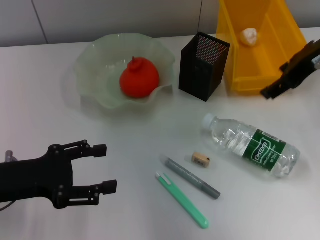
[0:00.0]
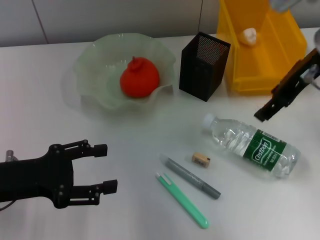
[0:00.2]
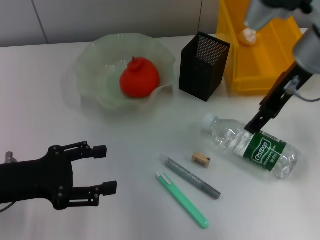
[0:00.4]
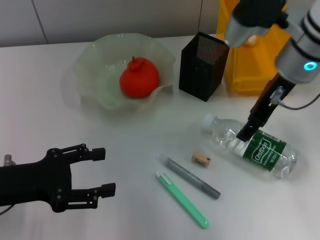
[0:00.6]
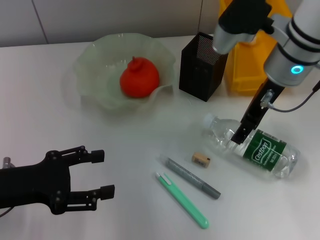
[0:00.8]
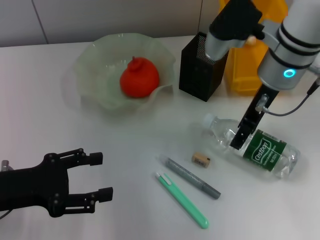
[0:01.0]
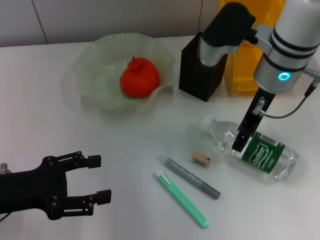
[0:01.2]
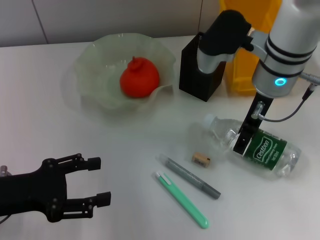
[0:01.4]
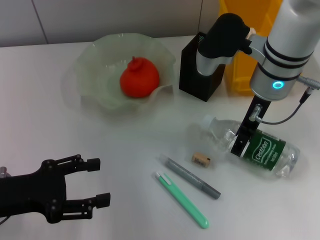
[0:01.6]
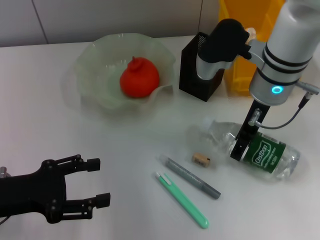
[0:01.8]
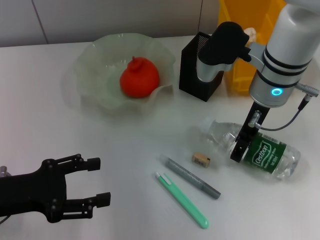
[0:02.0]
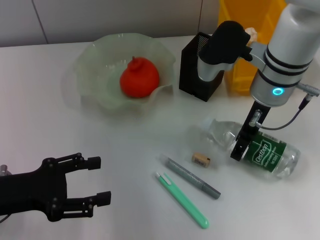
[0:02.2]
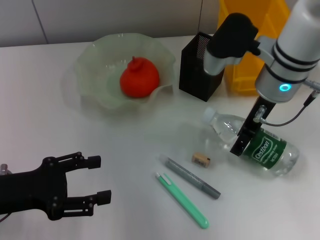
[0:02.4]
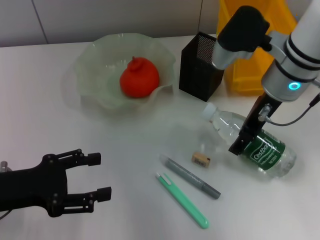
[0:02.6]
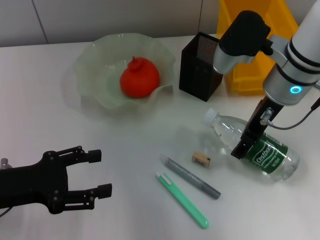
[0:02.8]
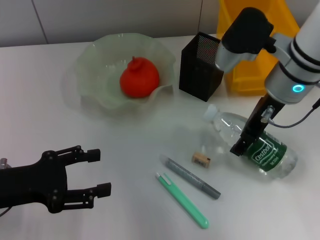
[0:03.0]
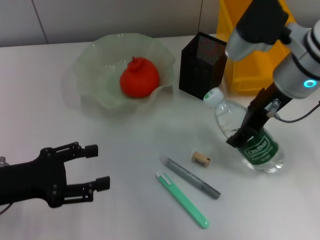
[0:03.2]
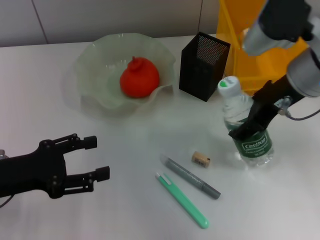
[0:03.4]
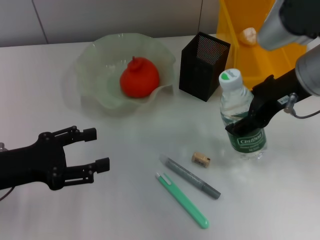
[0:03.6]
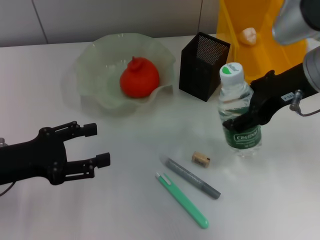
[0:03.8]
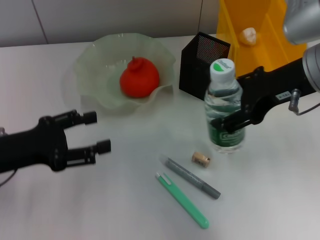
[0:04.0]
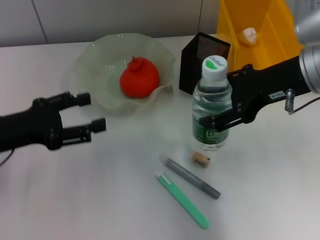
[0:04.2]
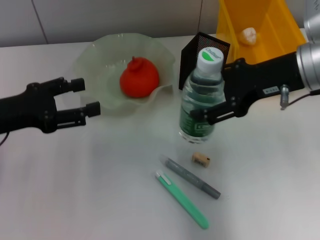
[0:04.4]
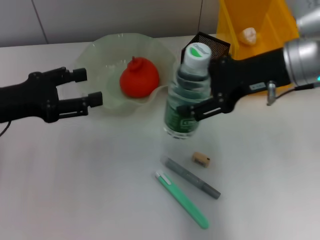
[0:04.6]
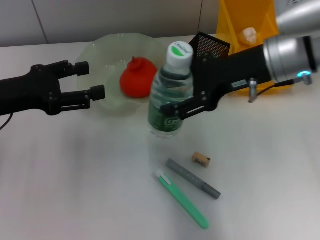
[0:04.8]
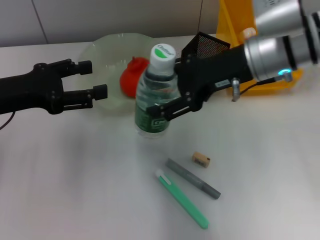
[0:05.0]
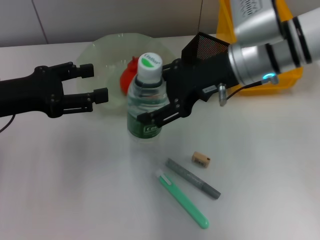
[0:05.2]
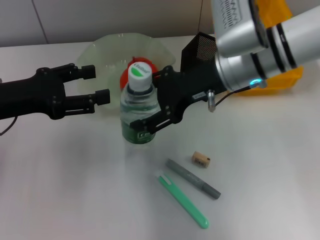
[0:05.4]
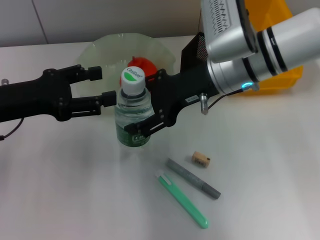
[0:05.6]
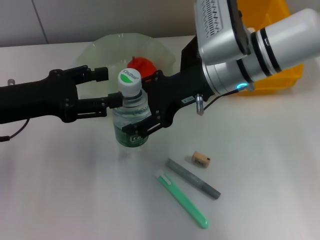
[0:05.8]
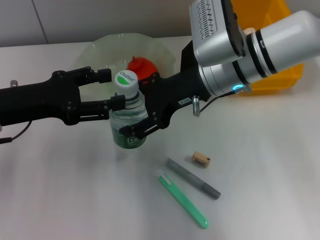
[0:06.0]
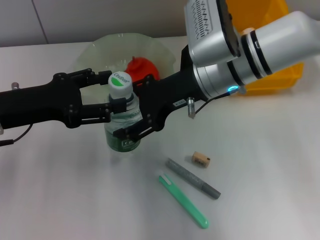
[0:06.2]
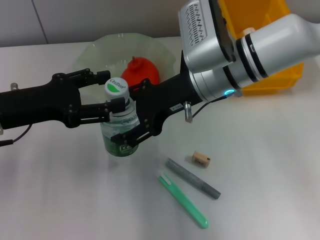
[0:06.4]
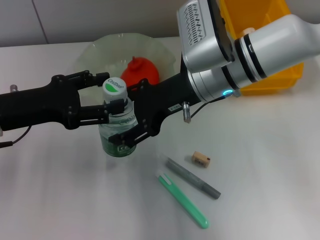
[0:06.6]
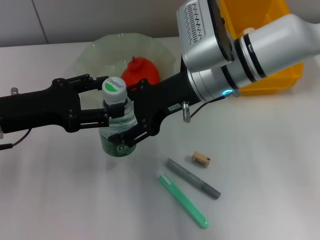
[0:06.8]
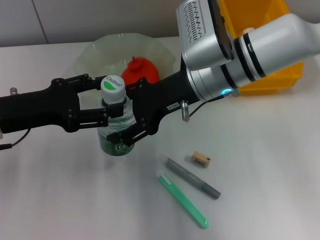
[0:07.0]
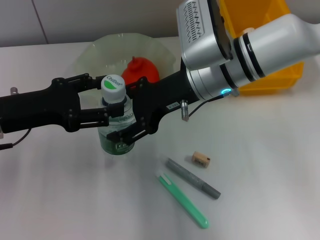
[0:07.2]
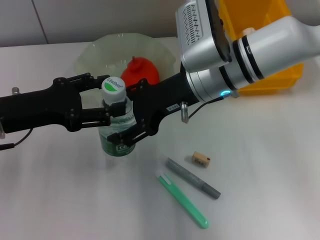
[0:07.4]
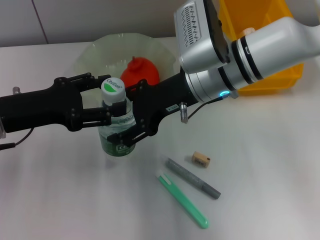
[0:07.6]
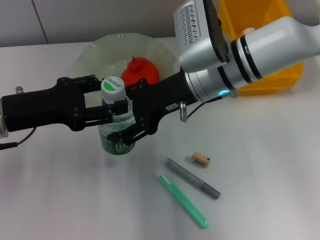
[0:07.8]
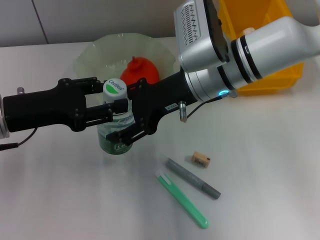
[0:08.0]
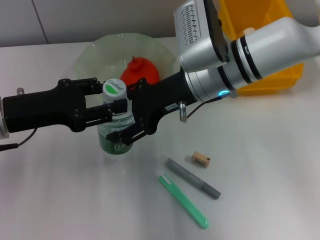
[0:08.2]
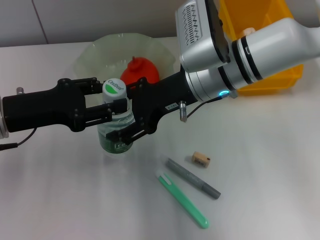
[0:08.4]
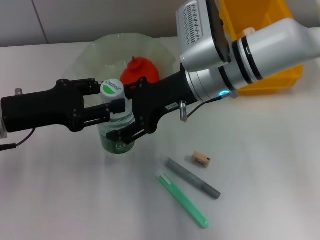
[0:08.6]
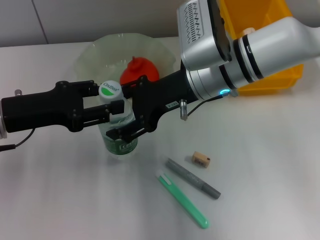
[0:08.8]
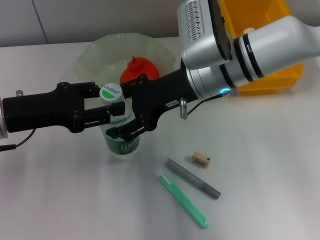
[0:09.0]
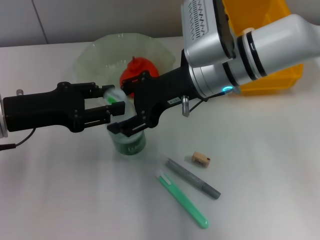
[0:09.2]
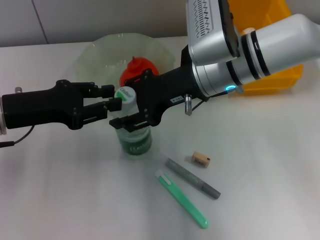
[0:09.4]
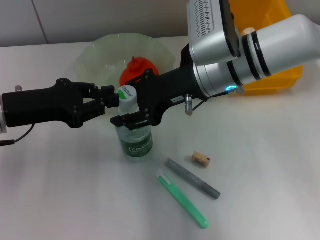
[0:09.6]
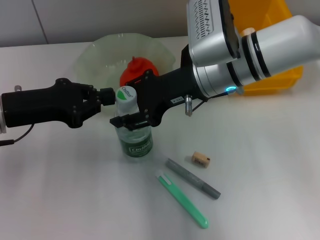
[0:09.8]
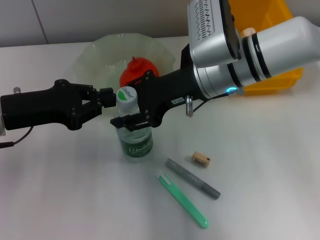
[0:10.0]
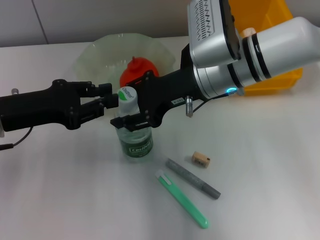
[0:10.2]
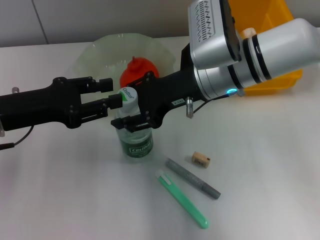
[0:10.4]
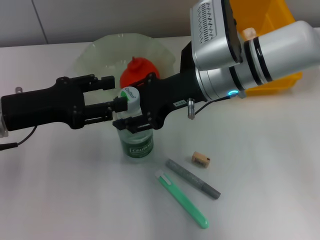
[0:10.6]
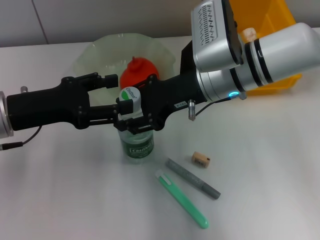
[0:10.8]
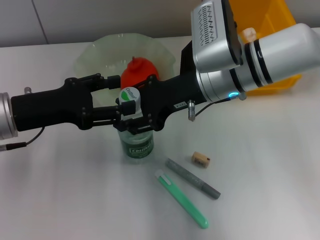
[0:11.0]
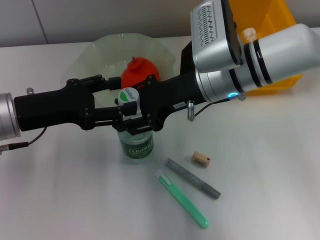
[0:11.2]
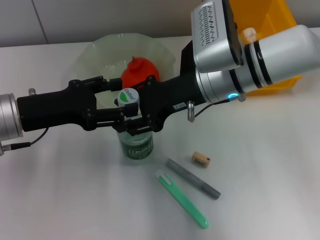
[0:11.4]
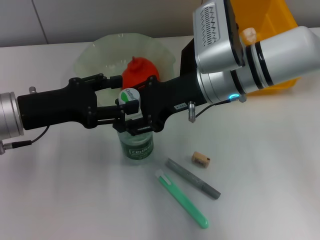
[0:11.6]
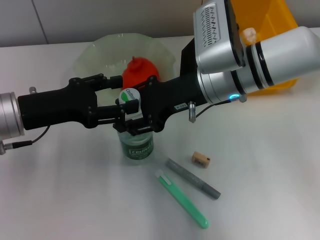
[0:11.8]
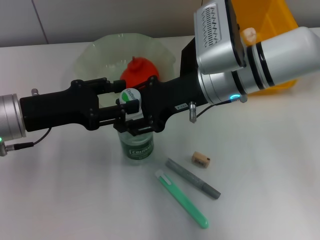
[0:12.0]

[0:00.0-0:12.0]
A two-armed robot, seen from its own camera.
Step, 0:00.0 to 0:02.2: Grab the water bottle with the right hand.
0:00.0 to 0:01.6: The right gripper is displaced to the left and downward by roughly 10 cm.
0:01.6 to 0:03.0: There are only small adjustments of the grippers.
0:03.0 to 0:04.4: The right gripper ends up about 5 cm from where it was. The left gripper goes about 5 cm forward.
0:04.4 to 0:06.0: The right gripper travels to the left by approximately 10 cm.
0:06.0 to 0:07.6: There are only small adjustments of the grippers.
0:07.6 to 0:09.0: The left gripper closes.
0:09.0 to 0:10.4: The right gripper closes its fingers, while the left gripper closes its fingers.
0:10.4 to 0:12.0: The left gripper opens.

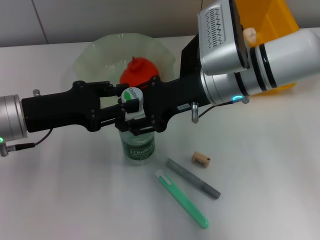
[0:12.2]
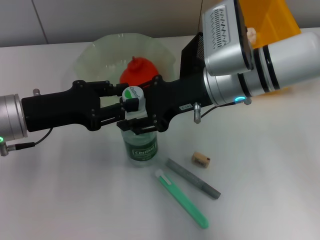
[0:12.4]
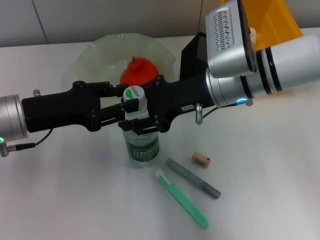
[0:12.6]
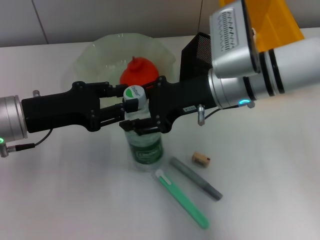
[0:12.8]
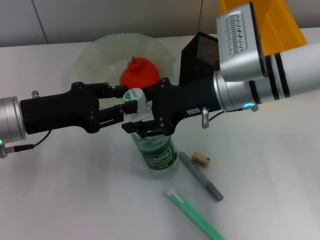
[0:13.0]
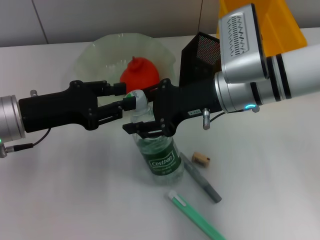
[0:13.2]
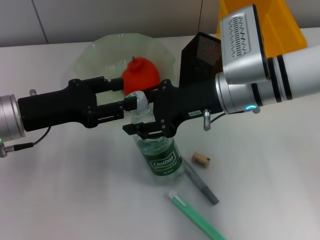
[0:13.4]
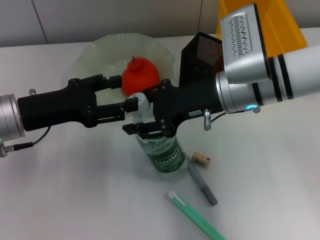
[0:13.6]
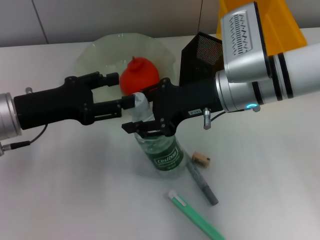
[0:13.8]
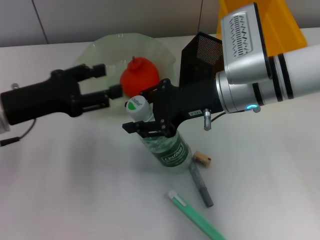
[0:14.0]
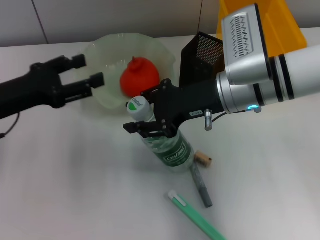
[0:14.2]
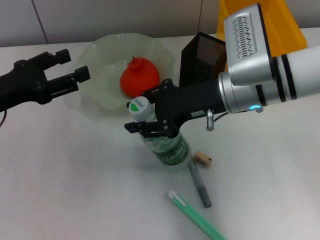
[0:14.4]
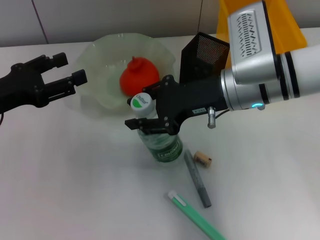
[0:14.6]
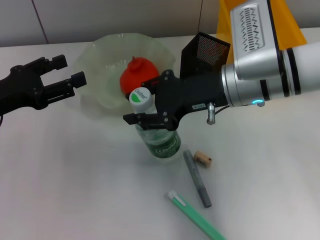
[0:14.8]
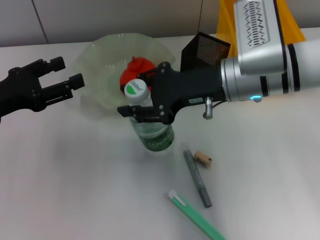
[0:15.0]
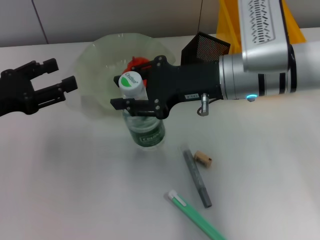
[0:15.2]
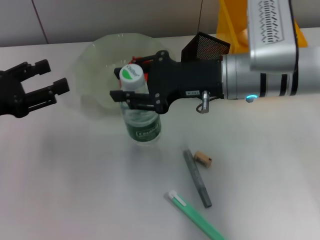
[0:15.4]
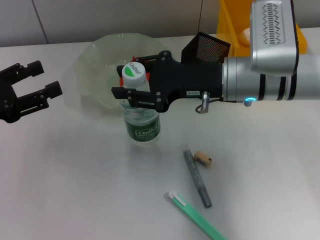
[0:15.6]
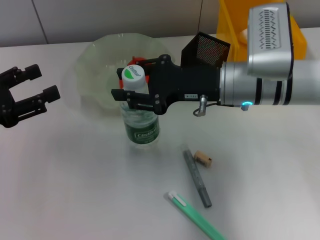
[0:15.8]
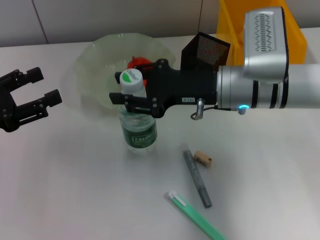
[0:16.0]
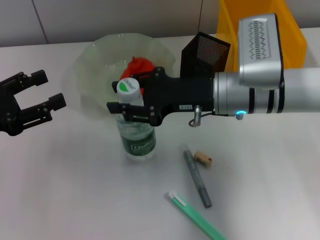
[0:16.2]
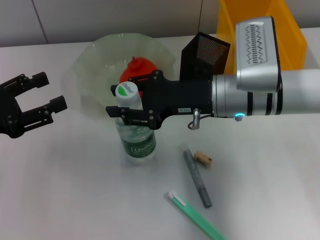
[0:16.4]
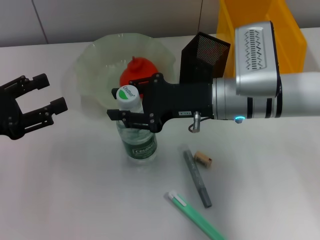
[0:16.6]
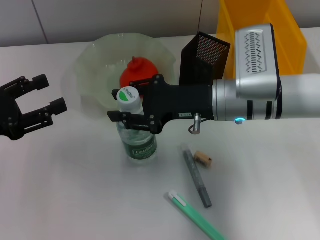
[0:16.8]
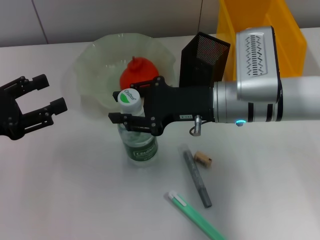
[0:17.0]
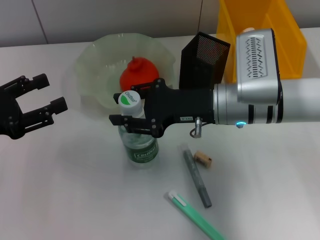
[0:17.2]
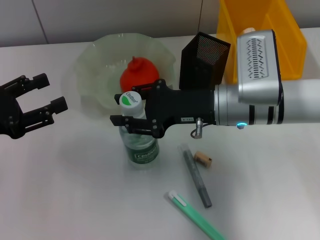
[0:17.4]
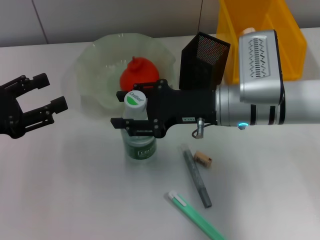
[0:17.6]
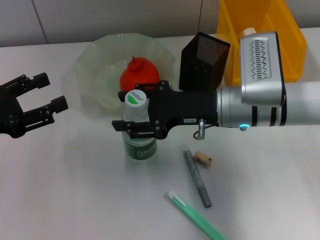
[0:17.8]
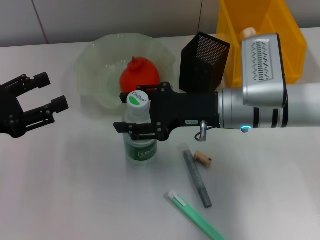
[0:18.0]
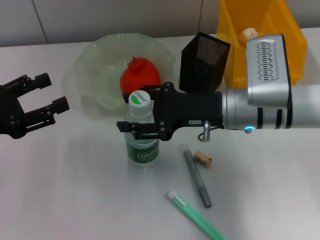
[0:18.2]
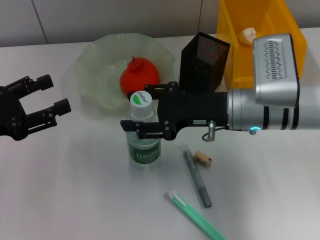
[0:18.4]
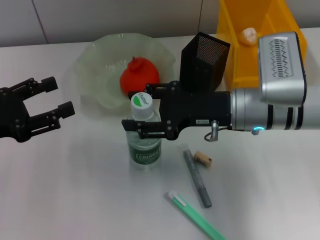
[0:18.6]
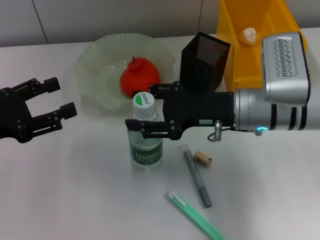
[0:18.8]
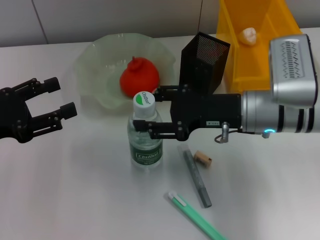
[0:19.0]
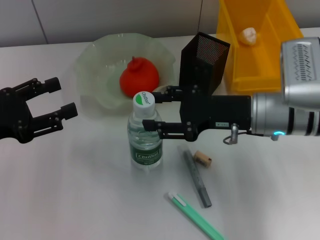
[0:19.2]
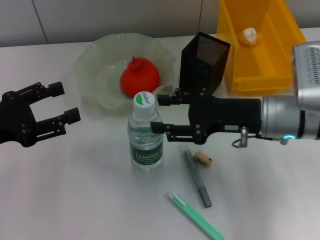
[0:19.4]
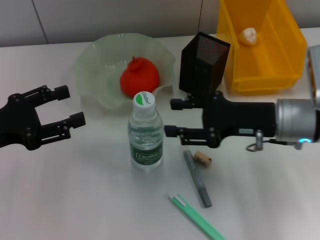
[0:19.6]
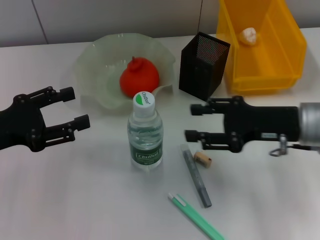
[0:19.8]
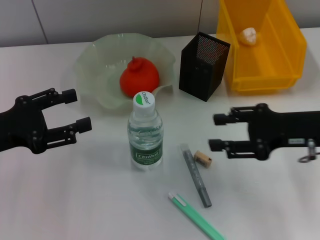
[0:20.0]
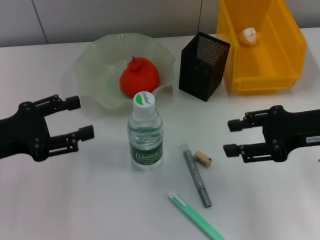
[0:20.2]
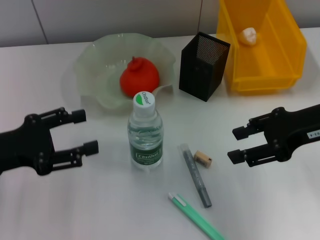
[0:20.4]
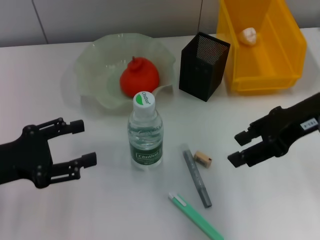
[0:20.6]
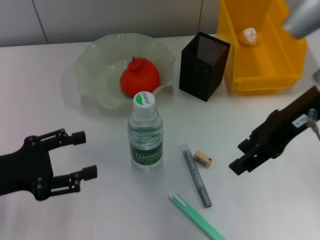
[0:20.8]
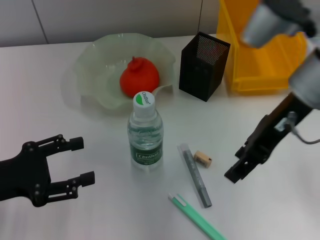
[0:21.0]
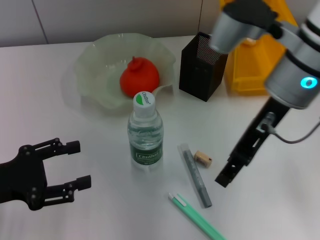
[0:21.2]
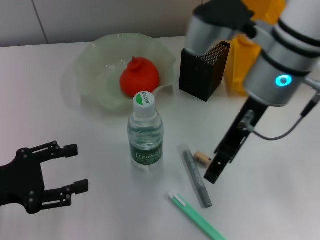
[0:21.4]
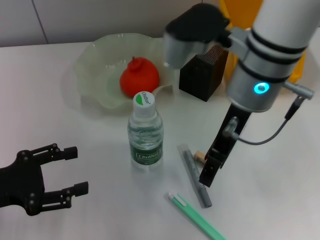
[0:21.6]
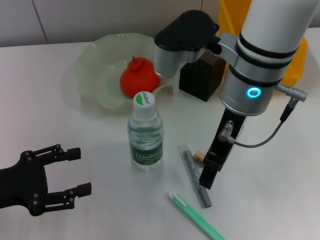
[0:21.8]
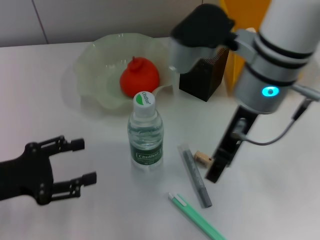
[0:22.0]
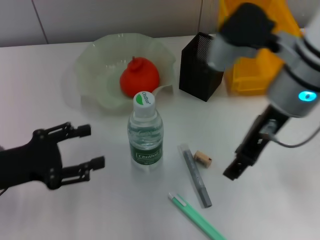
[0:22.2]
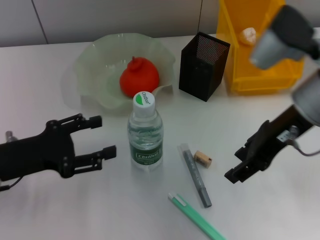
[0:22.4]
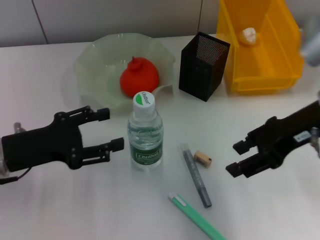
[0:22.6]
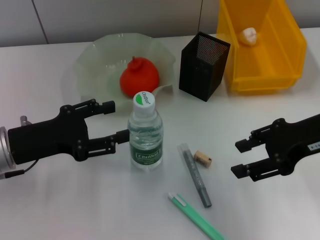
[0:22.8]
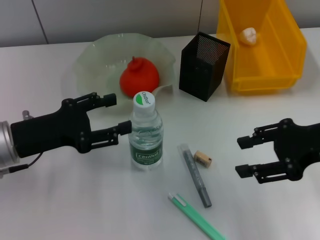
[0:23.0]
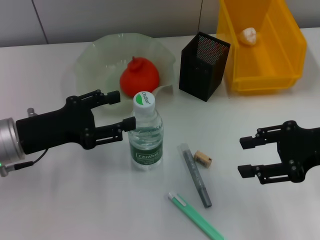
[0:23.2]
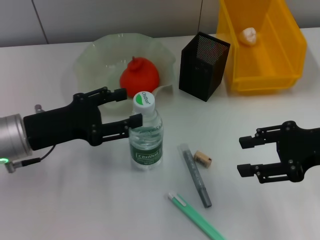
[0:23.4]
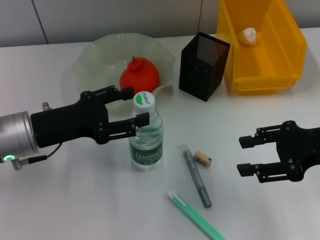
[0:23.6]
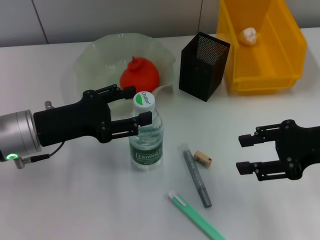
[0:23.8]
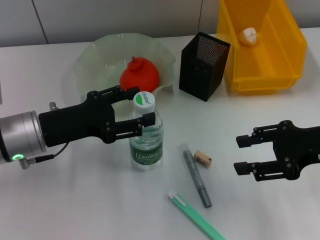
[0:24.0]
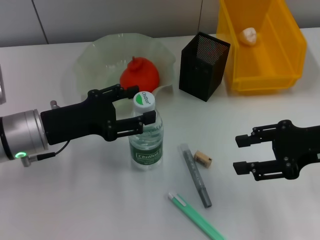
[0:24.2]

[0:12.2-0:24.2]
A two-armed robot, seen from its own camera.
Step, 0:12.2 to 0:19.4: Place the water bottle on the table with the right hand.
0:13.8 to 0:15.2: The left gripper is displaced to the left by some 5 cm.
0:16.6 to 0:18.2: There are only small adjustments of the grippers.
0:18.2 to 0:19.8: The right gripper travels to the right by some 10 cm.
0:19.8 to 0:21.2: The right gripper is displaced upward and to the left by about 15 cm. The left gripper shifts by approximately 5 cm.
0:21.2 to 0:22.6: The right gripper heads to the right, covering roughly 10 cm. Meanwhile the left gripper moves roughly 5 cm.
0:22.6 to 0:24.2: The right gripper moves to the right and downward, roughly 5 cm; the left gripper ends up some 5 cm from where it was.
